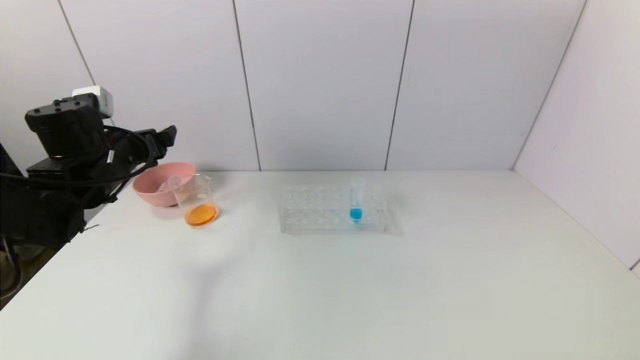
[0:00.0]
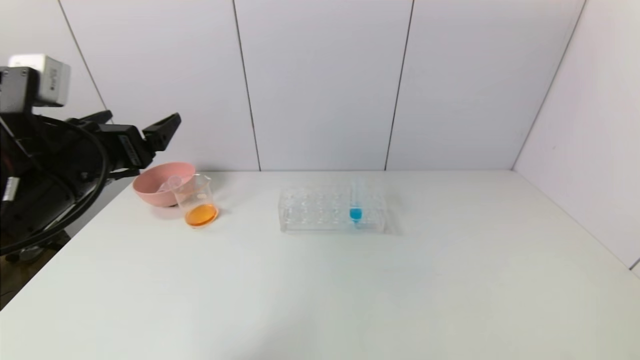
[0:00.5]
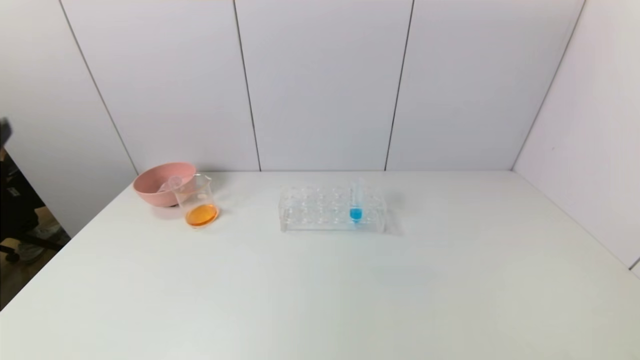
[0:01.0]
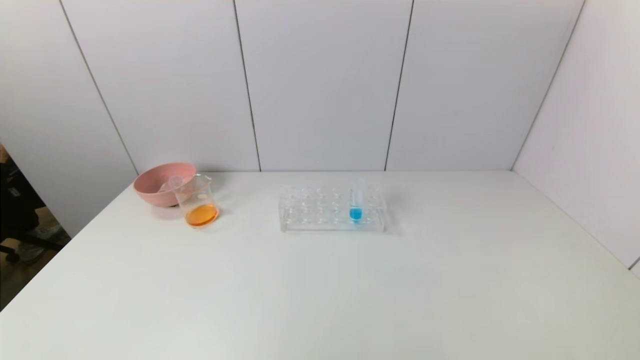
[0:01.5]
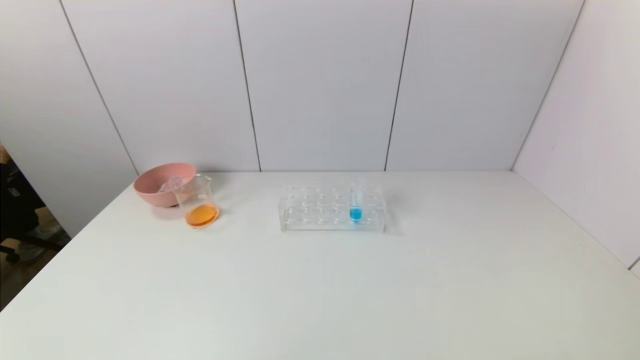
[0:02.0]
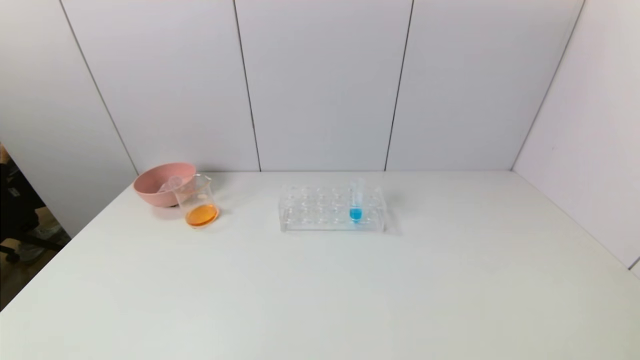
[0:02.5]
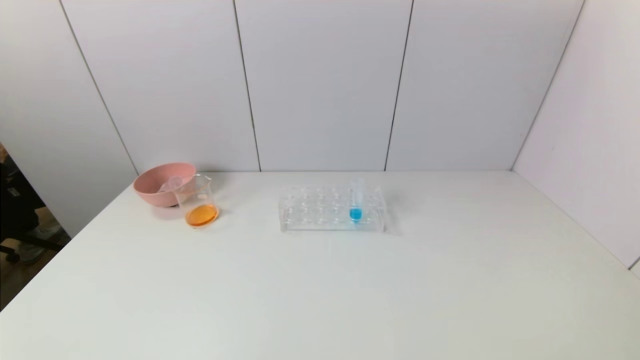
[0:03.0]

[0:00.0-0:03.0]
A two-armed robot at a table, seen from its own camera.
Task of the whole recording: pick up the test tube with yellow pigment and the test tube with red pigment by grippers and pour them into the beaker.
0:00.0 to 0:01.5: The left gripper is displaced backward by about 35 cm.
